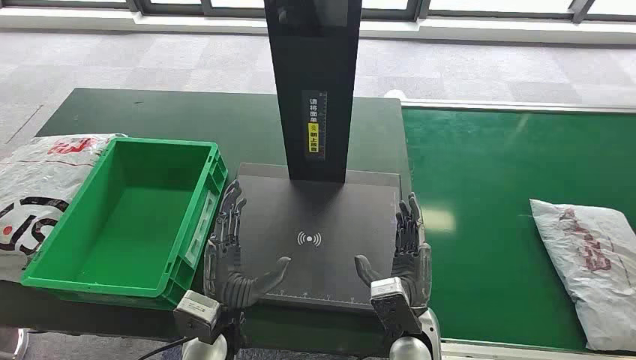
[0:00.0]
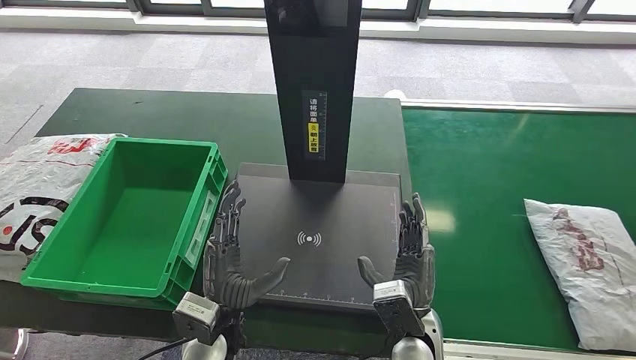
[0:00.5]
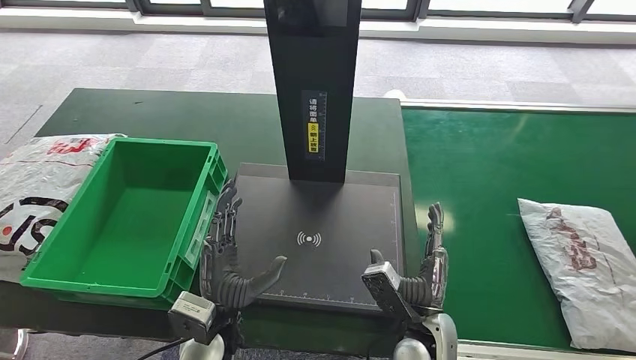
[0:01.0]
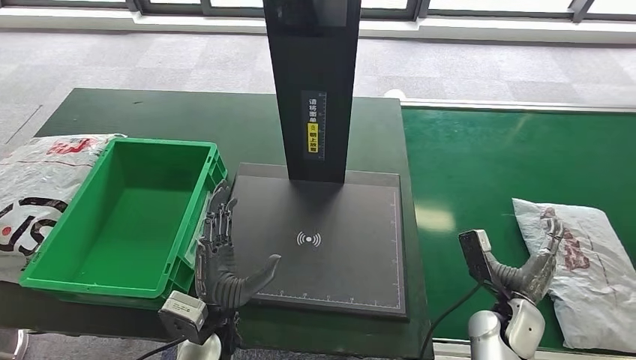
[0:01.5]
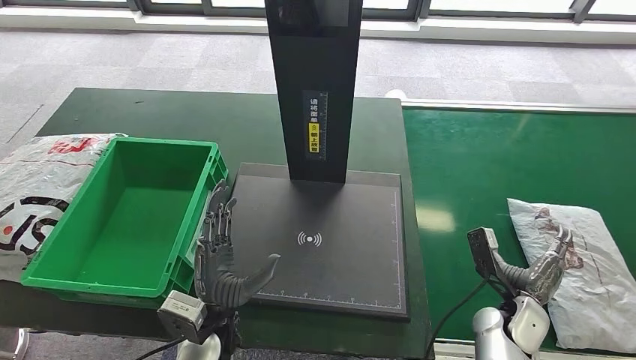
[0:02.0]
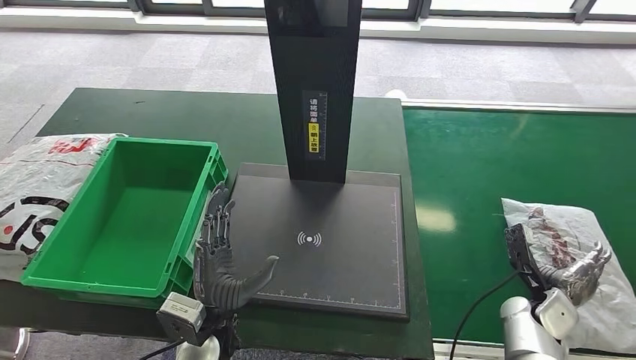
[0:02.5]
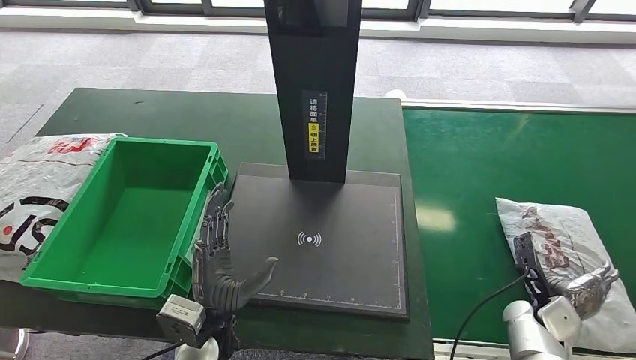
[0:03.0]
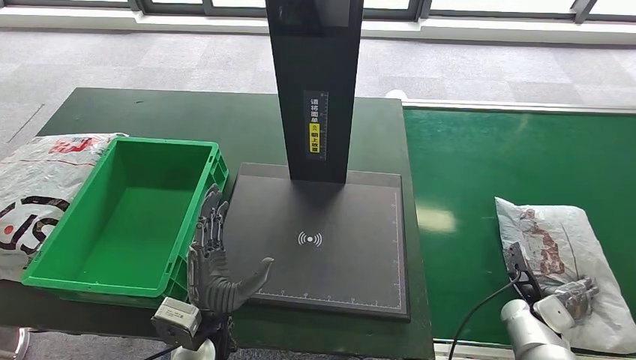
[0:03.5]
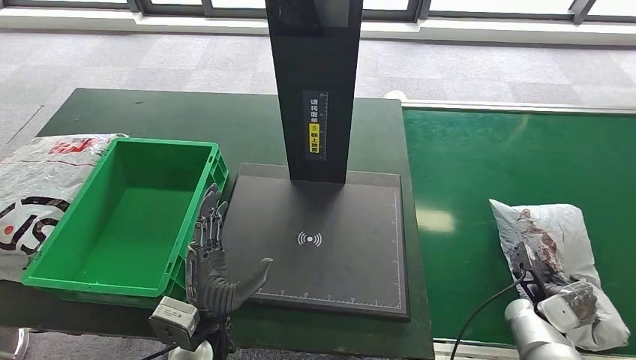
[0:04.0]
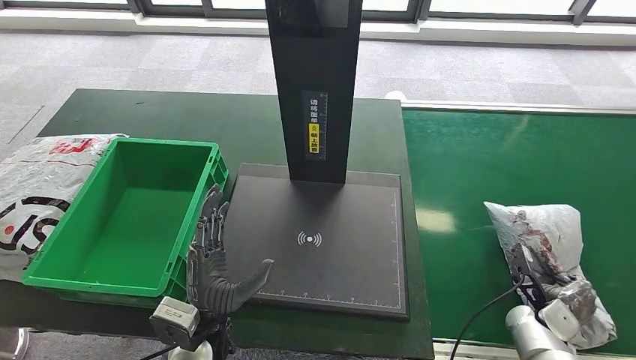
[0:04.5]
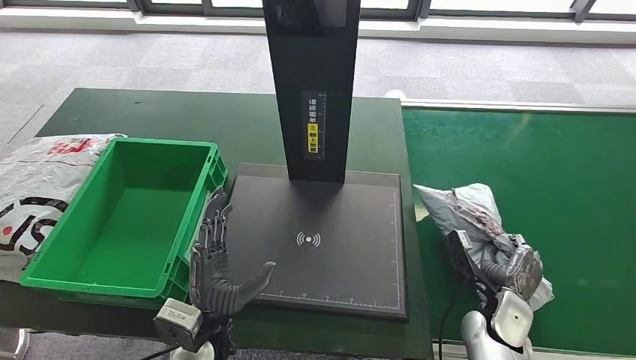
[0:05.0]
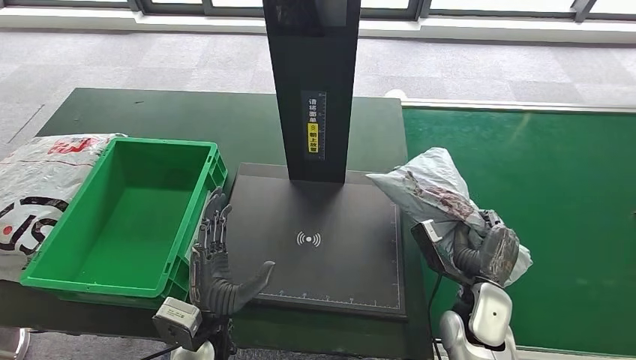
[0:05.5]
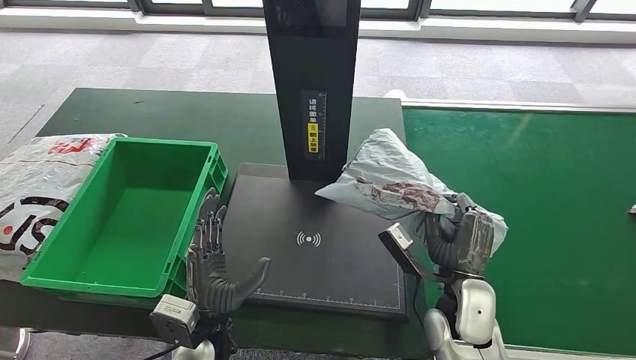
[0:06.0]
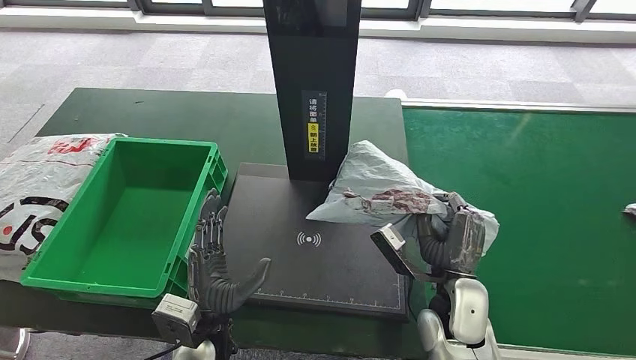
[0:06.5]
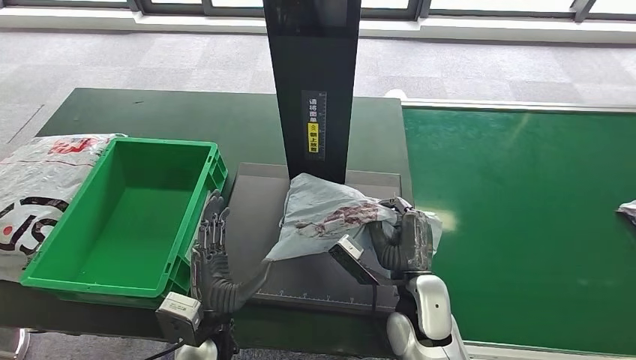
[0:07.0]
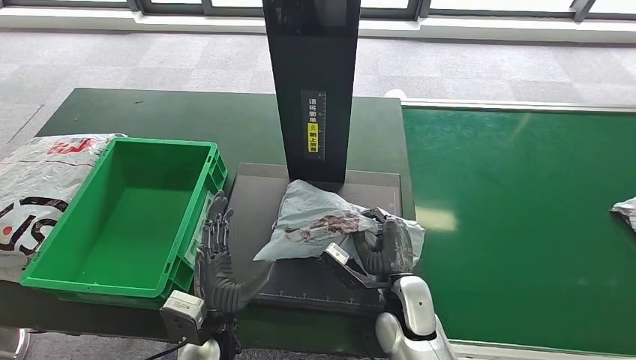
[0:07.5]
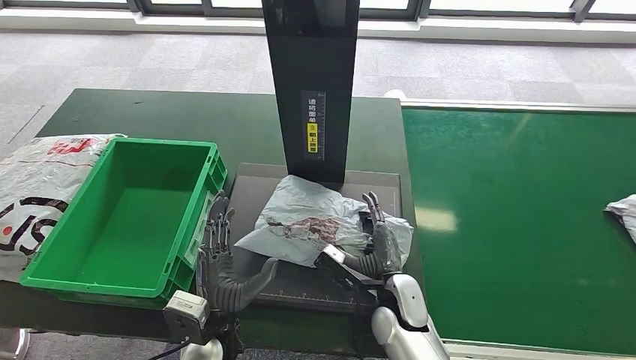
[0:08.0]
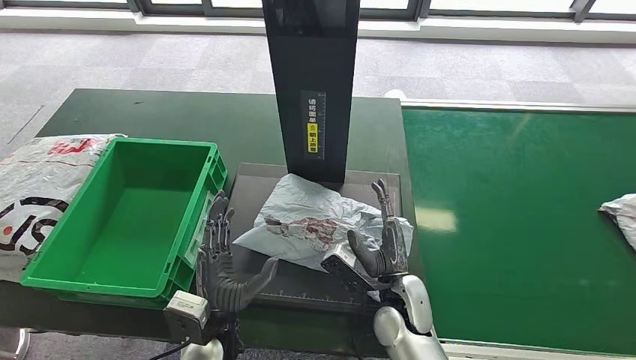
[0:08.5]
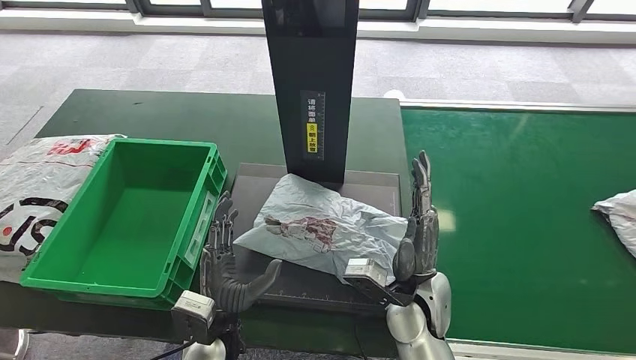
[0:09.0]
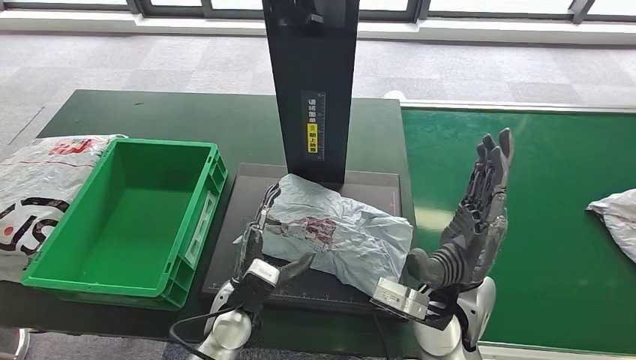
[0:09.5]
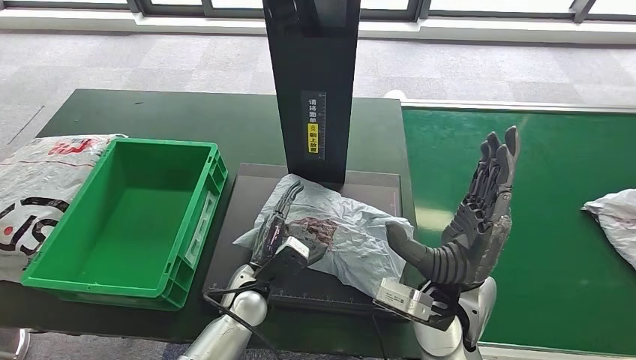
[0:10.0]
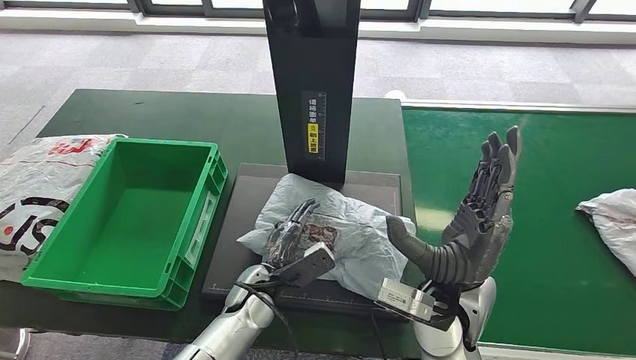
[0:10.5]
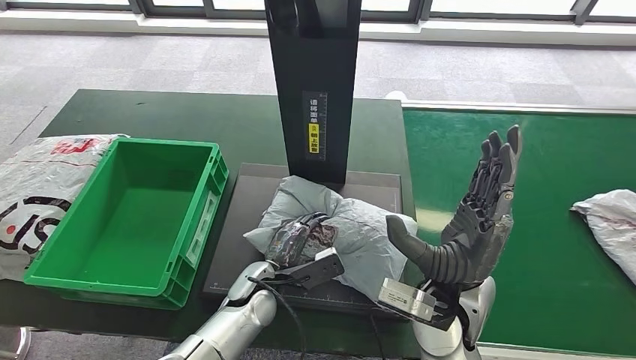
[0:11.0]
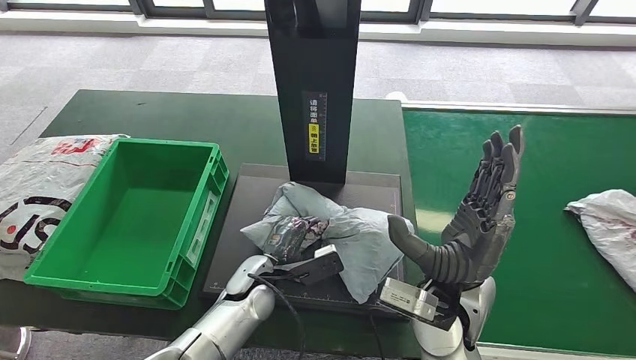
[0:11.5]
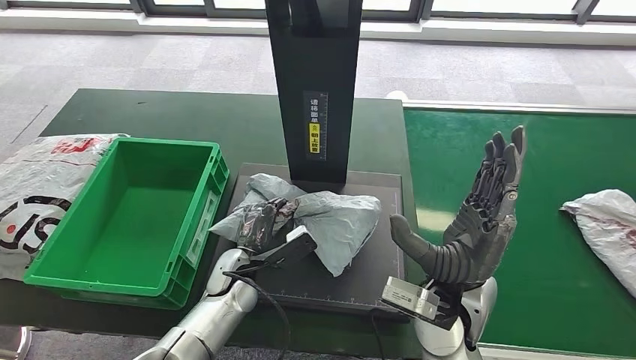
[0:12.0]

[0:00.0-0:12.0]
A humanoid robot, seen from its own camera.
Step, 0:00.0 to 0:05.5: Take the parcel off the conveyor belt.
Step, 0:06.0 to 0:09.5: Place the parcel onto the inbound machine.
0:02.0 to 0:04.0: The right hand travels to the right by some 10 cm.
0:04.0 to 0:06.0: The right hand goes roughly 25 cm to the left and upward.
0:06.0 to 0:08.0: The right hand goes approximately 10 cm to the left and downward.
0:08.0 to 0:10.0: The left hand goes some 10 cm forward, while the right hand goes roughly 15 cm upward.

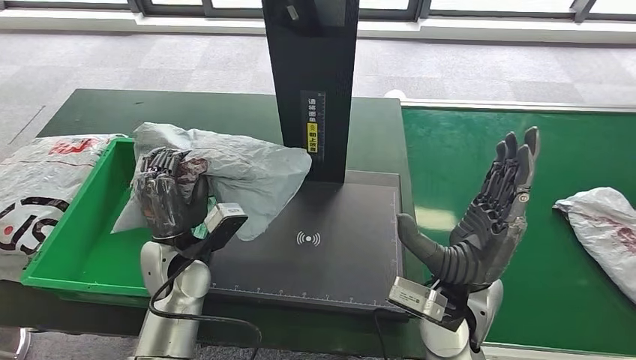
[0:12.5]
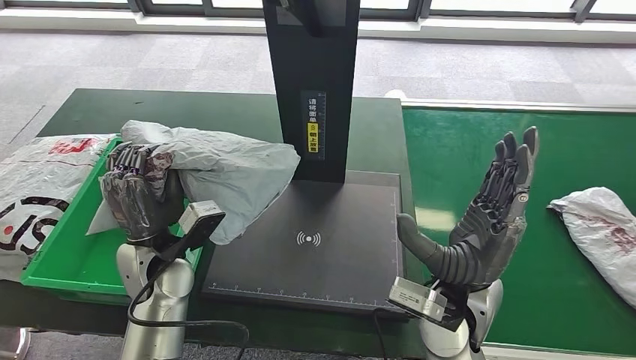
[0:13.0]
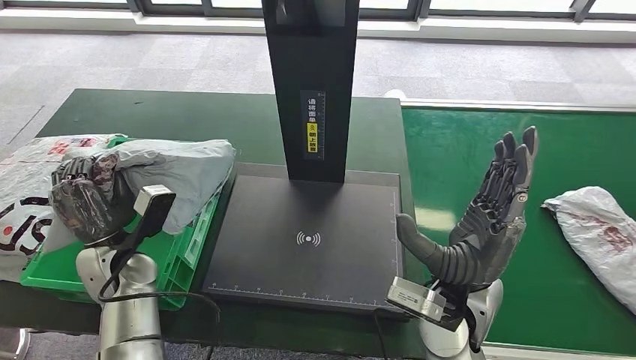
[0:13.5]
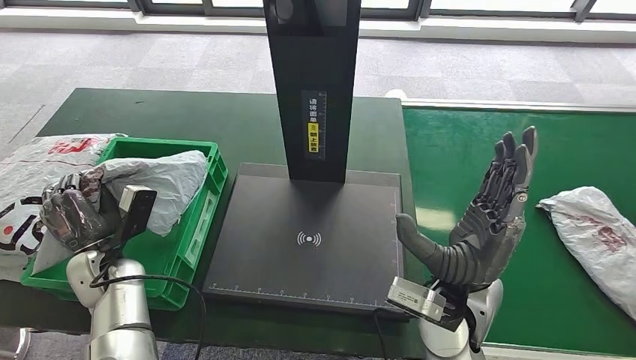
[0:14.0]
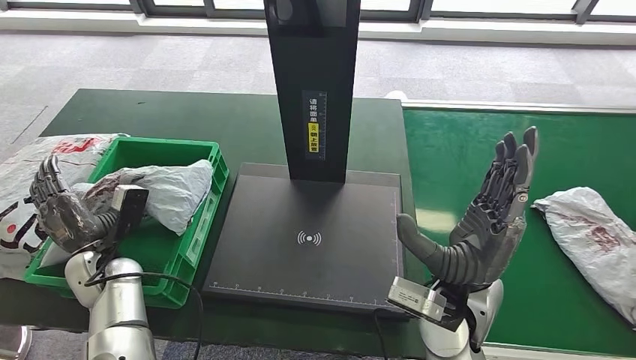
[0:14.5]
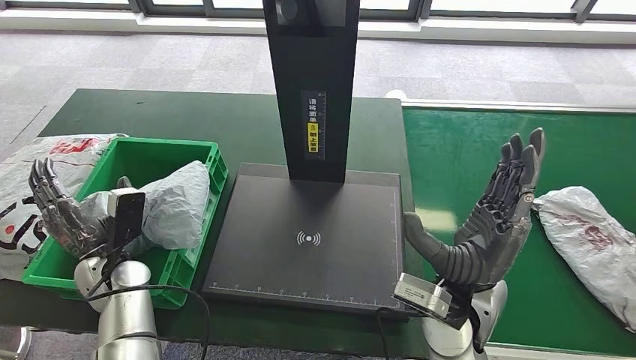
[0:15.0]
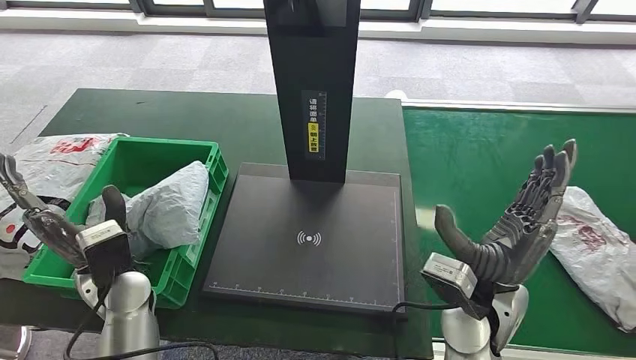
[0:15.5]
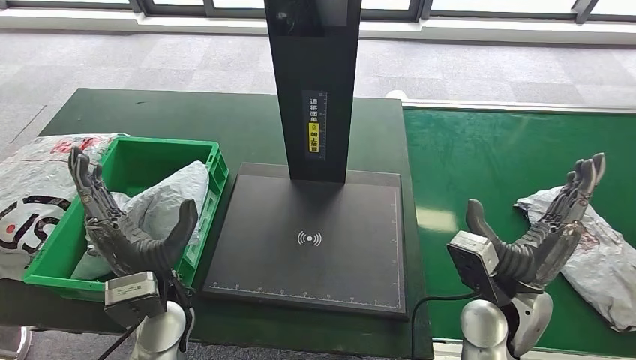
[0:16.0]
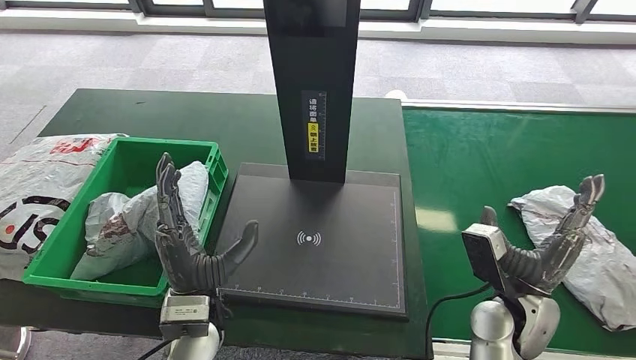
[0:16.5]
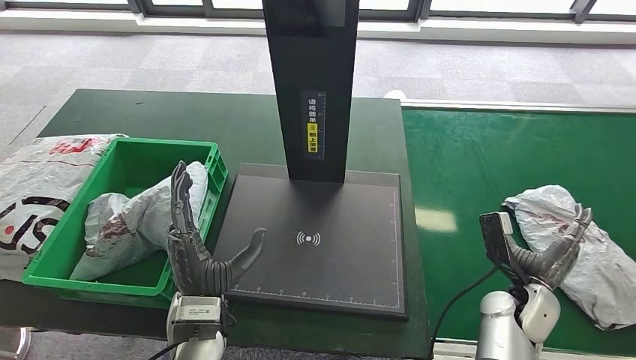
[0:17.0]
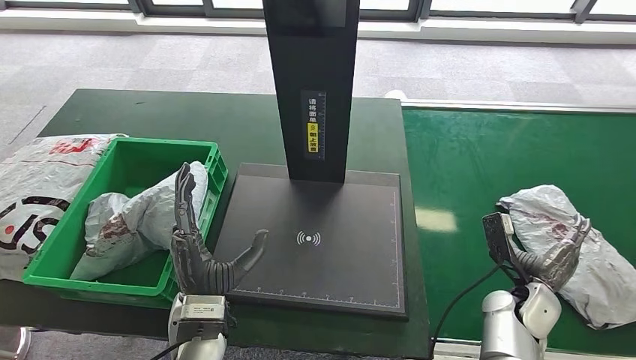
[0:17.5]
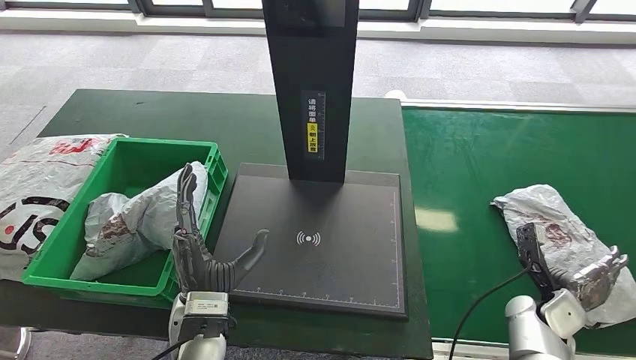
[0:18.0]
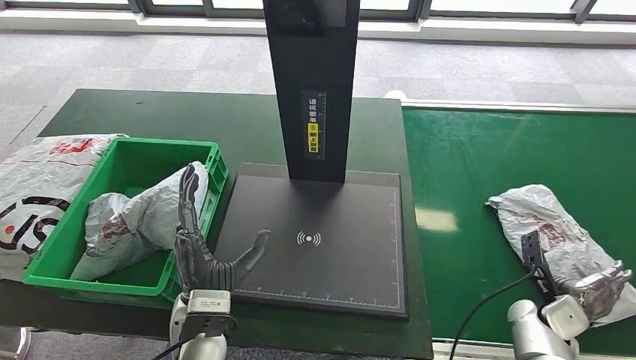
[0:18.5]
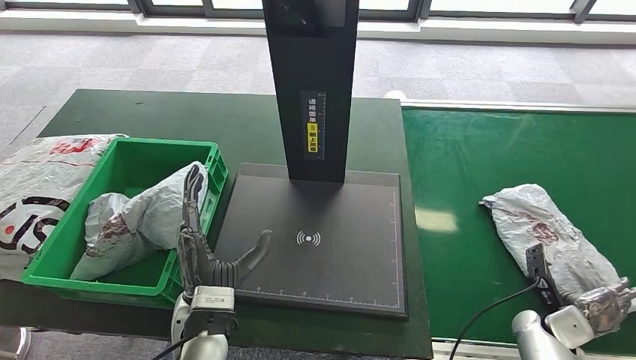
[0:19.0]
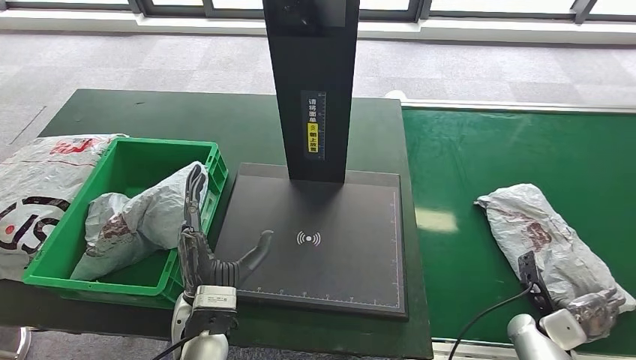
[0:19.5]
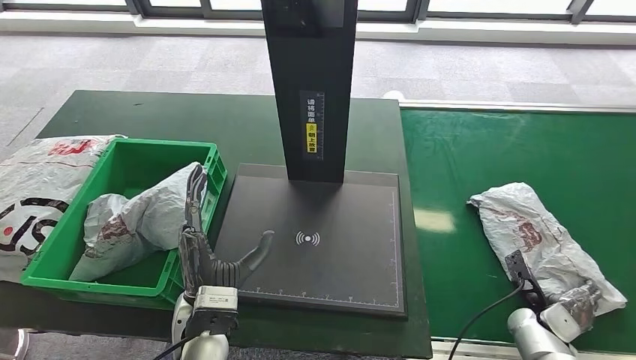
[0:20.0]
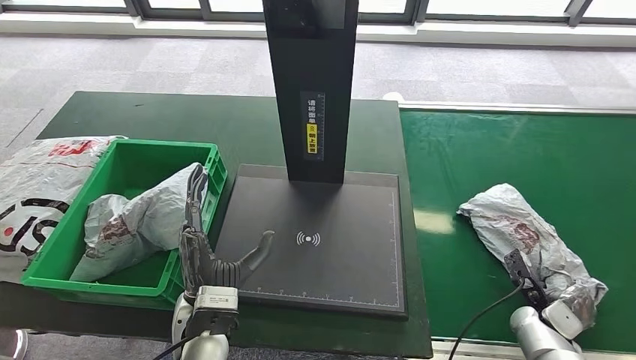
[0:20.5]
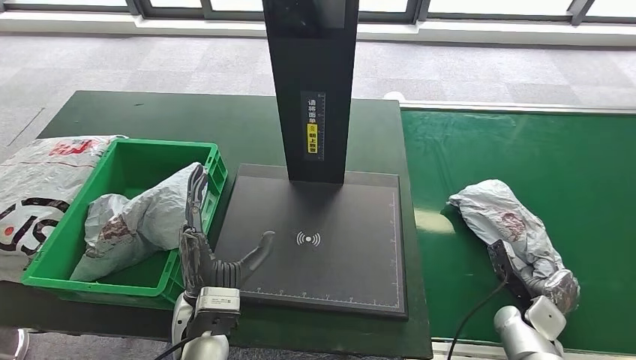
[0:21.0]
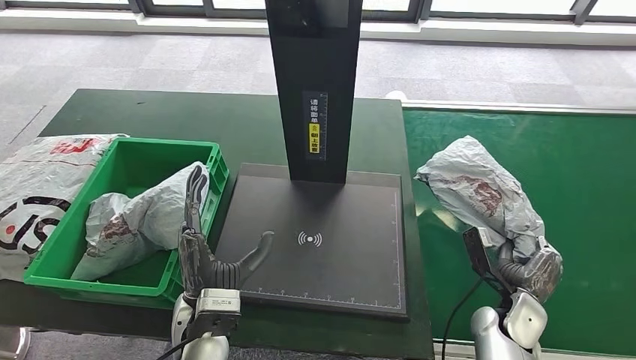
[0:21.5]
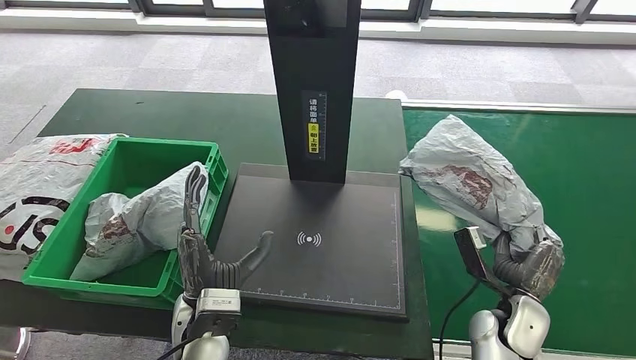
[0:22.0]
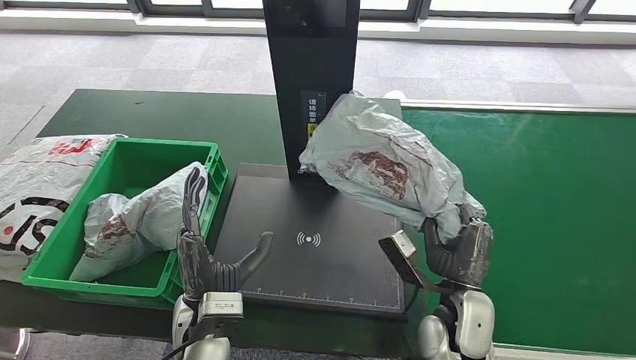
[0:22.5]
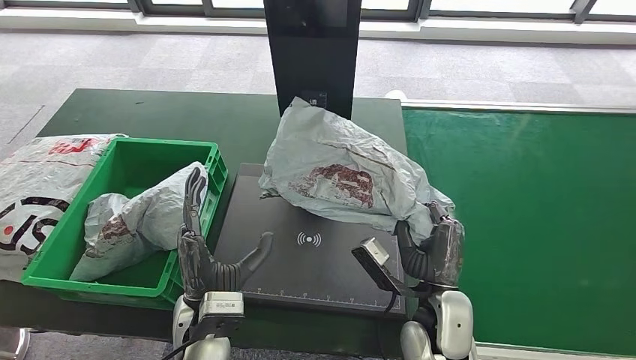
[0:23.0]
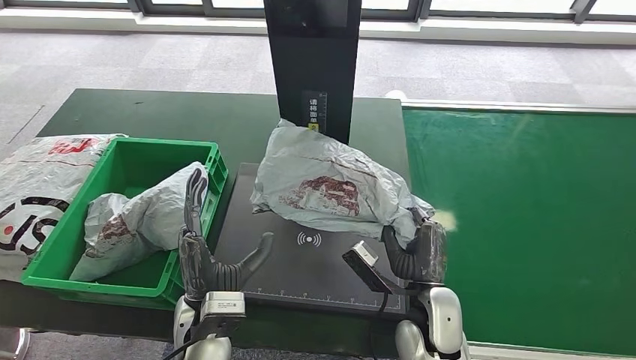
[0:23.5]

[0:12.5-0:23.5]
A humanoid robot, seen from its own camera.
Step, 0:14.0 to 0:15.5: Put the parcel inside the courier box.
Step, 0:16.5 to 0:22.0: Pick up the parcel from the conveyor belt.
0:16.0 to 0:18.0: The right hand heads to the right and downward, covering some 20 cm, while the left hand heads to the right, covering approximately 5 cm.
0:18.0 to 0:20.0: The right hand shifts by roughly 5 cm.
0:20.0 to 0:21.5: The right hand shifts roughly 10 cm to the left.
